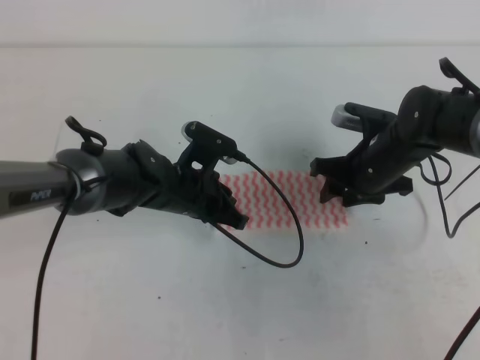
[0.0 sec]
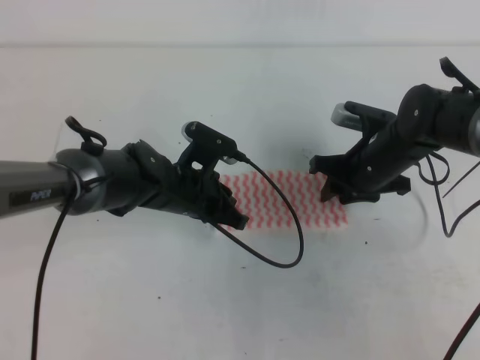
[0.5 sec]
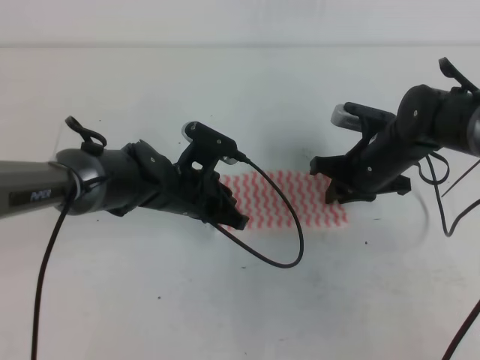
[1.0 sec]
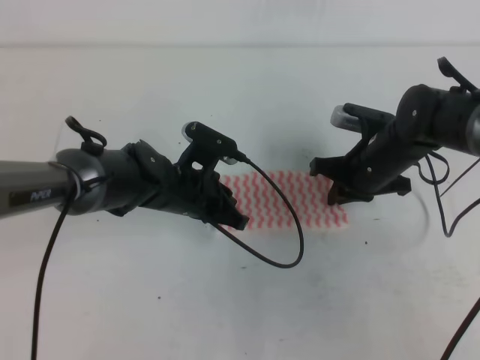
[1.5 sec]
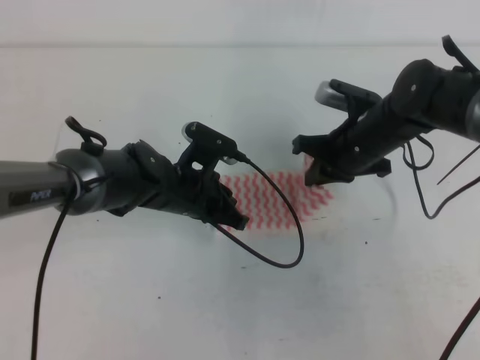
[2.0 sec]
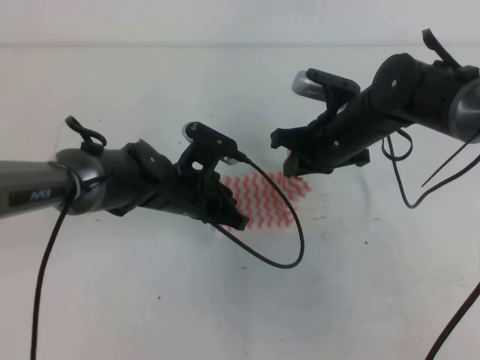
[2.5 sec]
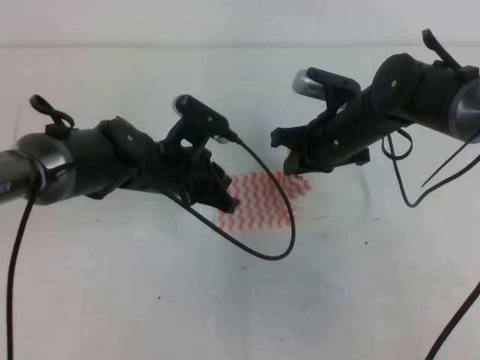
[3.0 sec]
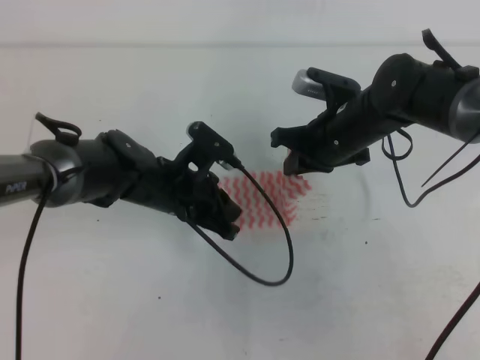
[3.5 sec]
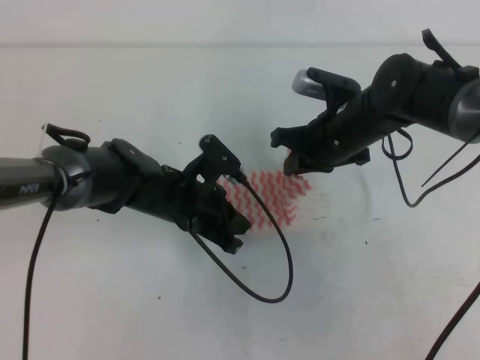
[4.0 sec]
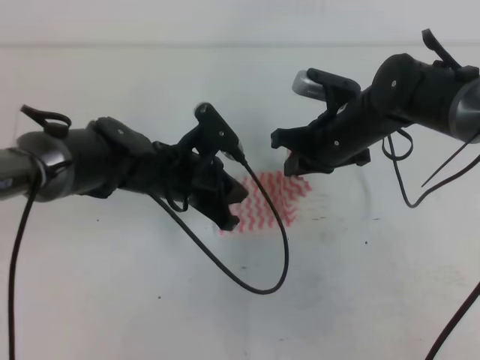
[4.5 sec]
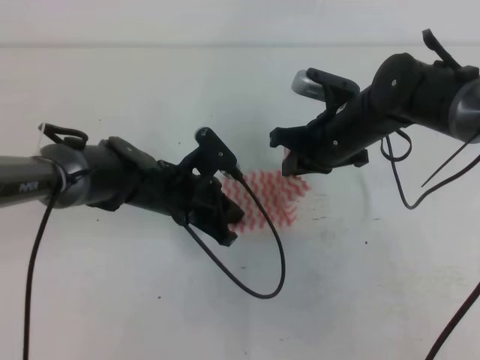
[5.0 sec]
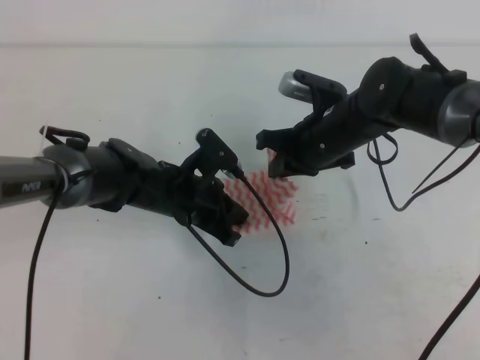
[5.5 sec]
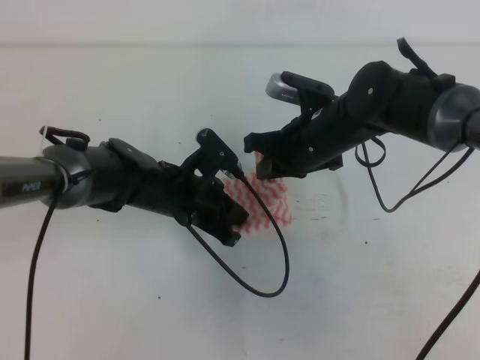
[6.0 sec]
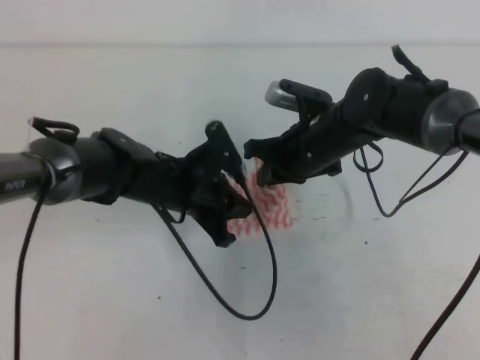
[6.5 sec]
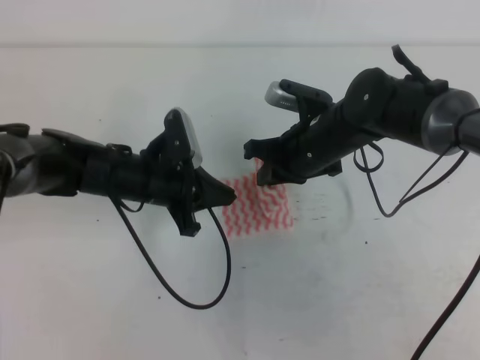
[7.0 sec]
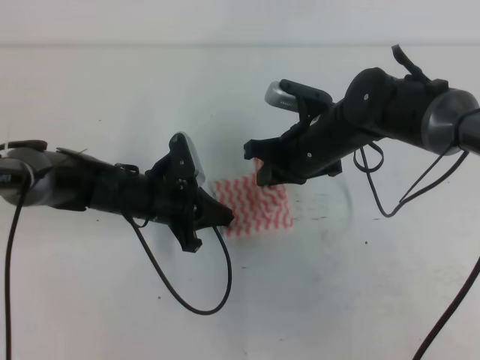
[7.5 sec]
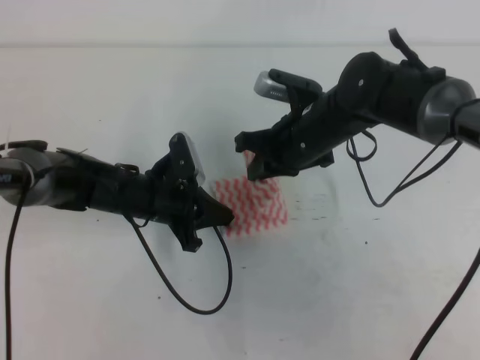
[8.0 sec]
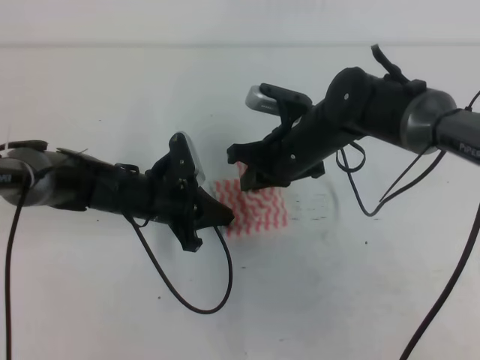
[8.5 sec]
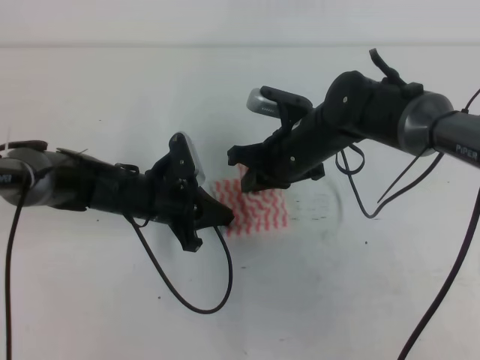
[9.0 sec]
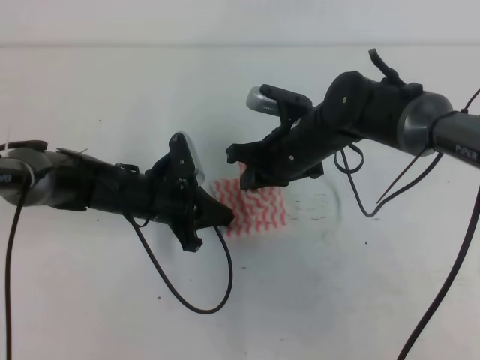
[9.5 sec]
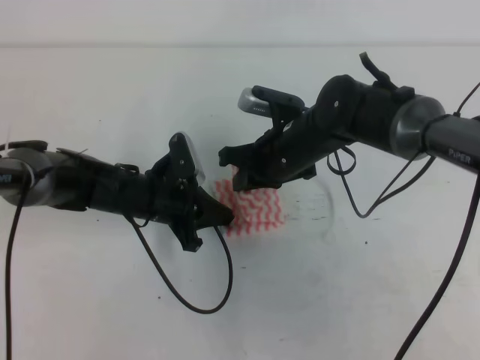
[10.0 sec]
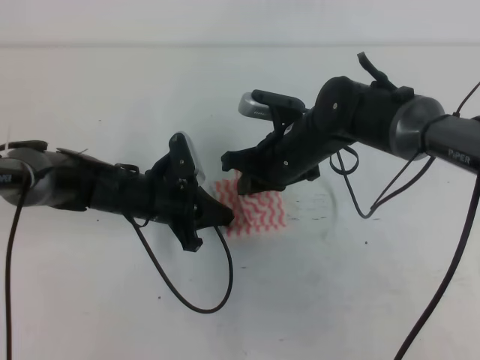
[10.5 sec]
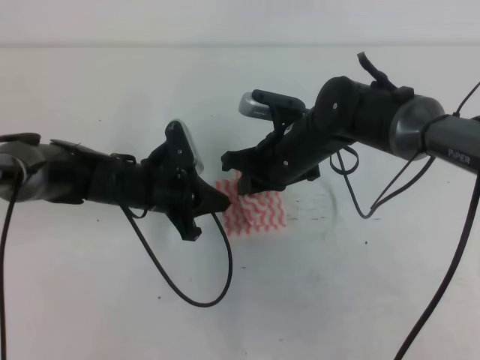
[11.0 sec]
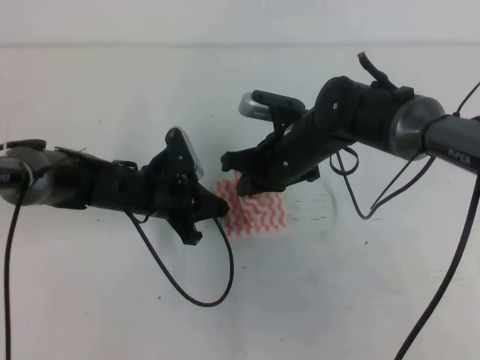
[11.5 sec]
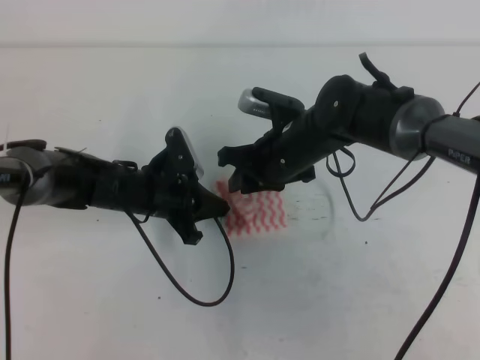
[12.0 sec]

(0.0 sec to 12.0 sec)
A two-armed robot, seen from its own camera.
0.0 sec - 2.0 sec: The right gripper closes.
4.0 sec - 6.0 sec: The grippers move only a little.
8.0 sec - 10.0 sec: The grippers stay close to where they were, moving slightly.
10.0 sec - 12.0 sec: The right gripper opens.

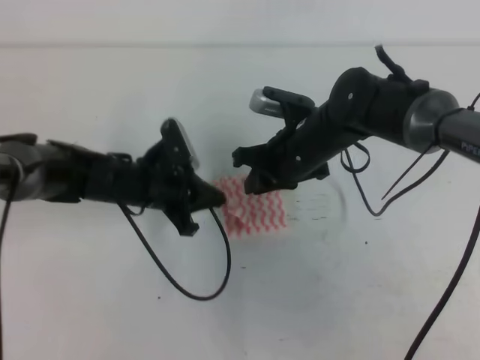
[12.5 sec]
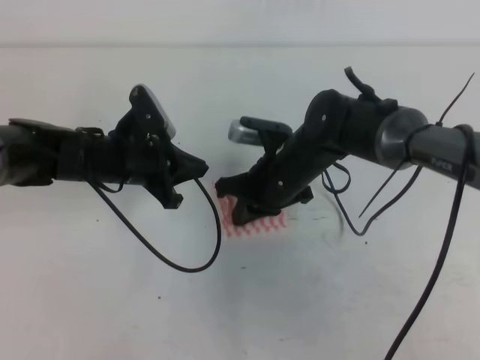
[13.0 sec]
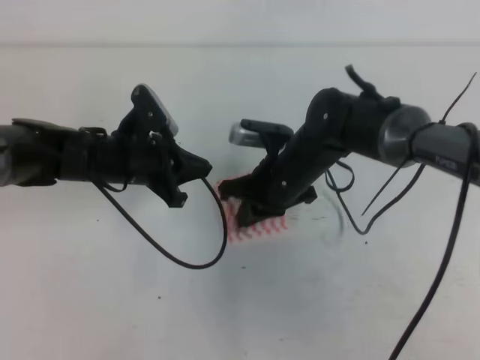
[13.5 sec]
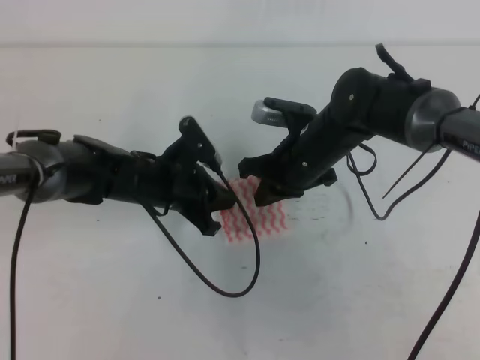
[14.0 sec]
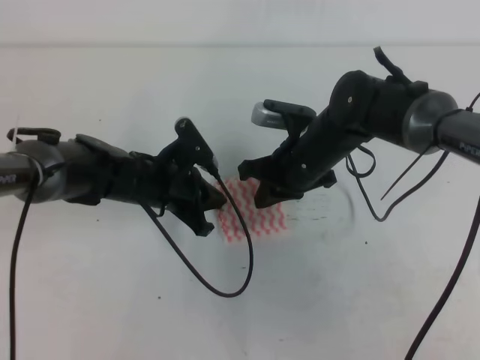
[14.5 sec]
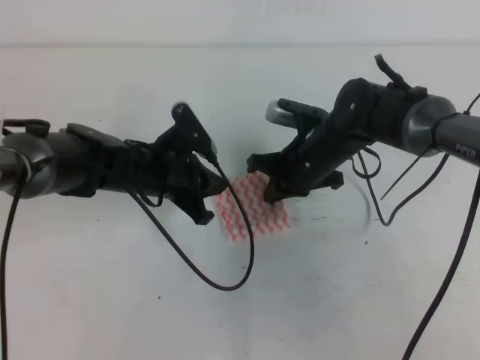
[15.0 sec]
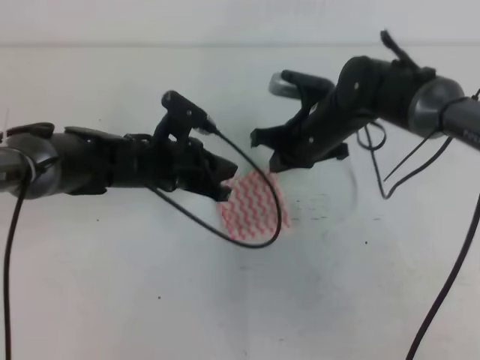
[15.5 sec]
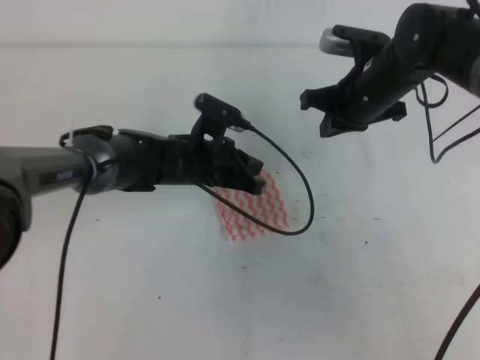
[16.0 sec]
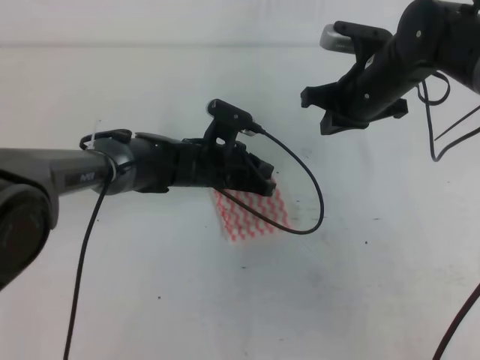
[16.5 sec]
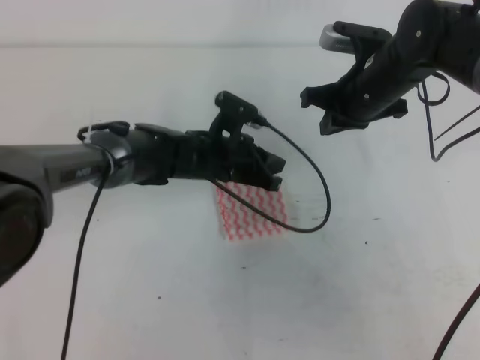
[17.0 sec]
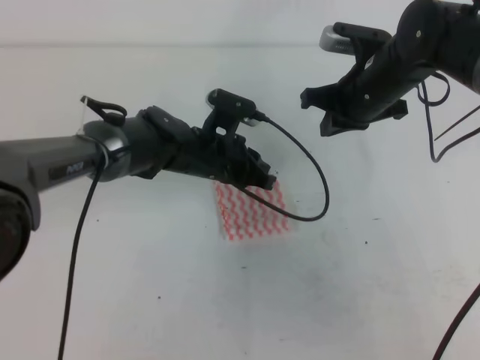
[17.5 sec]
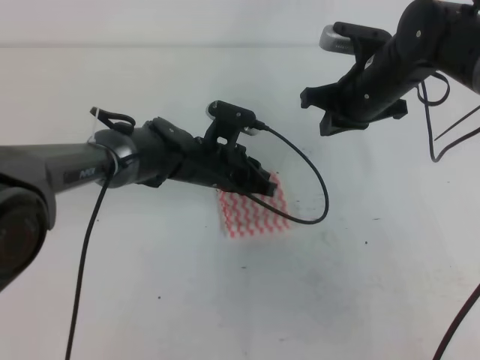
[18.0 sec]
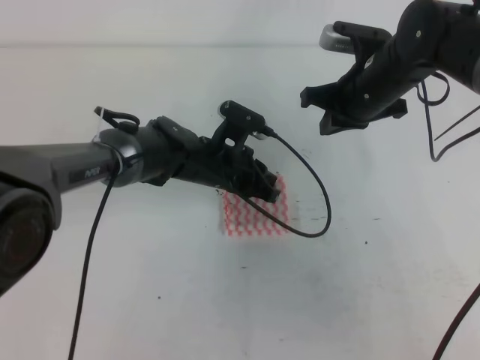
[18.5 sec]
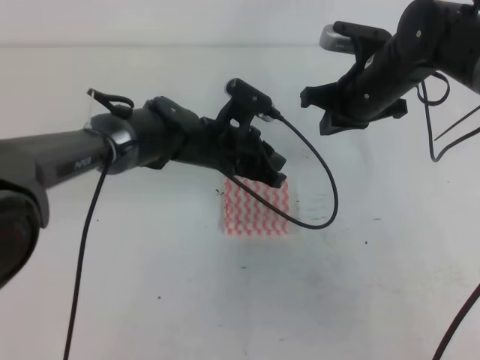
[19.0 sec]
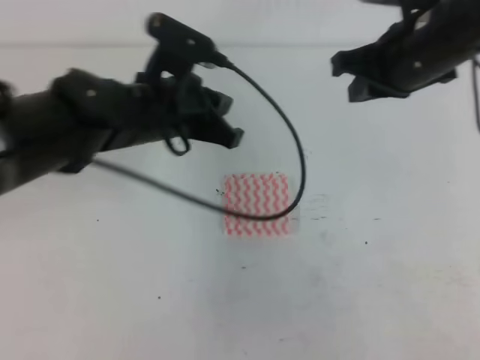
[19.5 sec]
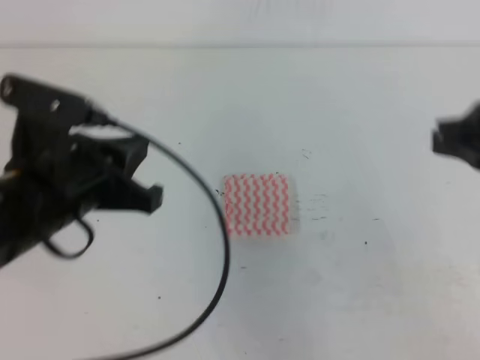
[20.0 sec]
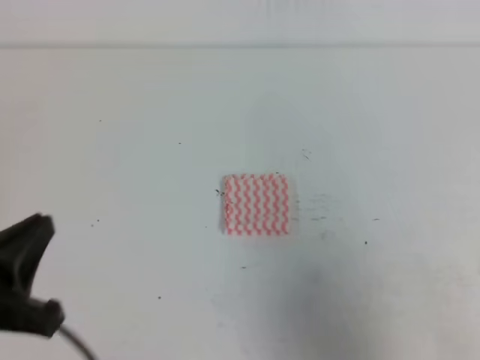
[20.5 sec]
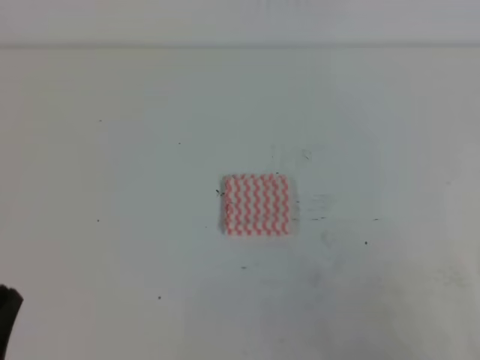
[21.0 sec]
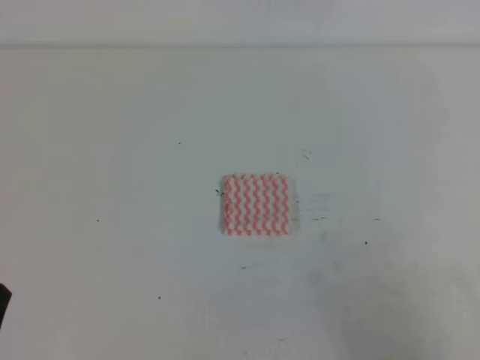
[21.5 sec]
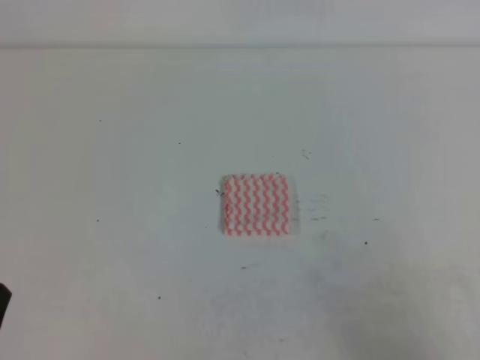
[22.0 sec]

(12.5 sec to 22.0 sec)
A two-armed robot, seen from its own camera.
12.5 sec - 14.5 sec: The grippers stay close to where they were, moving slightly.
14.5 sec - 16.5 sec: The right gripper is displaced to the right and upward by roughly 10 cm. Meanwhile the left gripper is displaced to the right by about 5 cm.
16.5 sec - 18.0 sec: The grippers stay close to where they were, moving slightly.
18.0 sec - 20.0 sec: The right gripper travels backward and upward by approximately 25 cm; the left gripper is displaced backward, upward and to the left by approximately 25 cm.
20.0 sec - 22.0 sec: The right gripper goes approximately 20 cm backward, downward and to the right; the left gripper is displaced backward, to the left and downward by roughly 20 cm.
